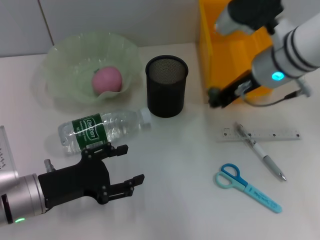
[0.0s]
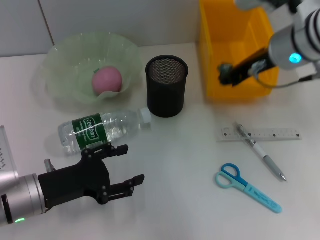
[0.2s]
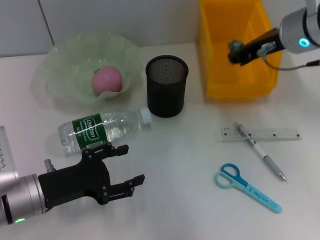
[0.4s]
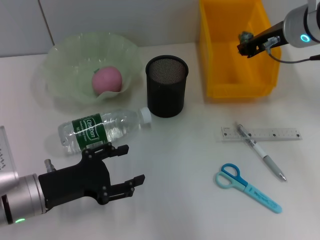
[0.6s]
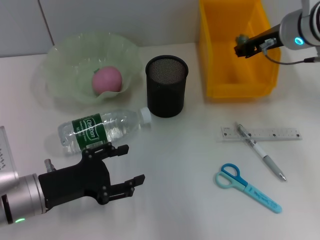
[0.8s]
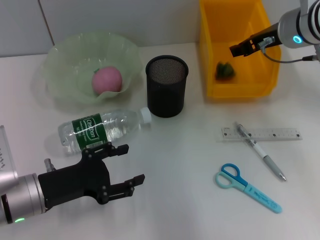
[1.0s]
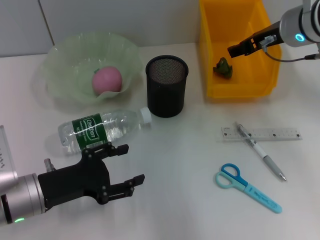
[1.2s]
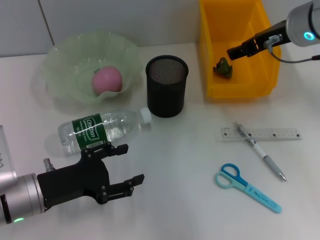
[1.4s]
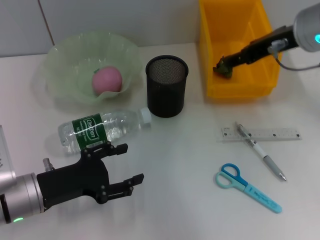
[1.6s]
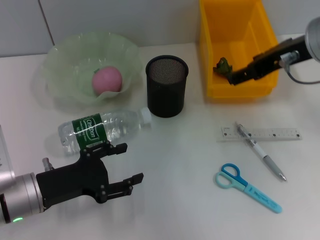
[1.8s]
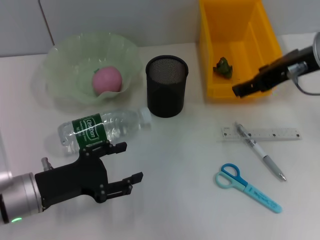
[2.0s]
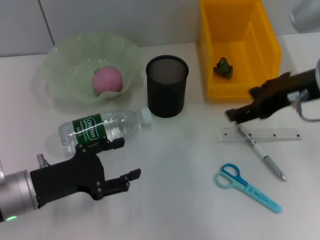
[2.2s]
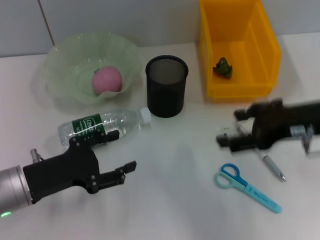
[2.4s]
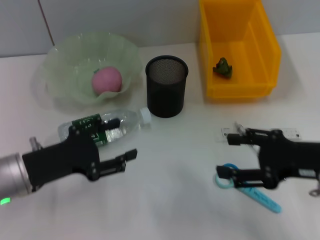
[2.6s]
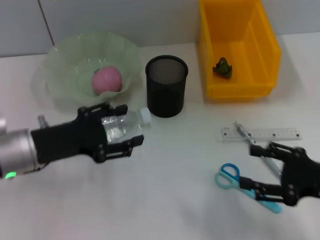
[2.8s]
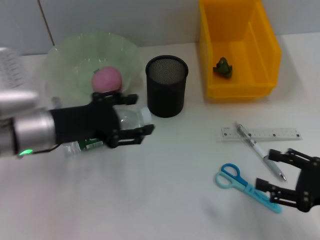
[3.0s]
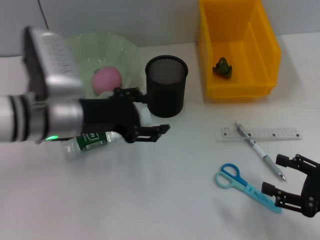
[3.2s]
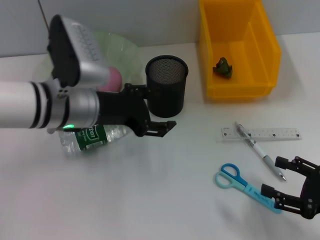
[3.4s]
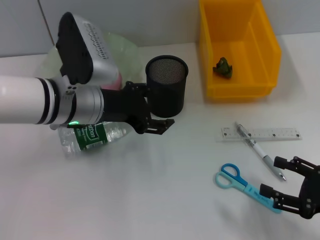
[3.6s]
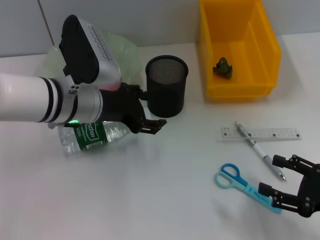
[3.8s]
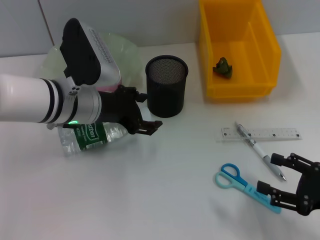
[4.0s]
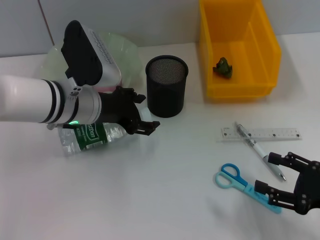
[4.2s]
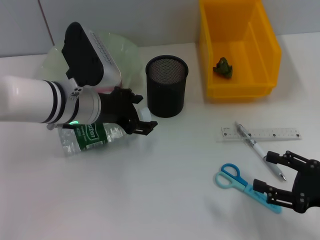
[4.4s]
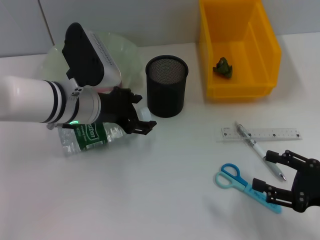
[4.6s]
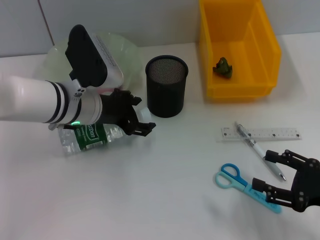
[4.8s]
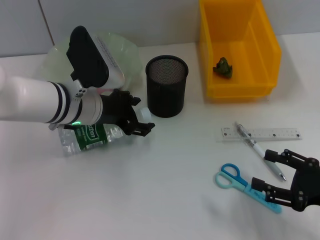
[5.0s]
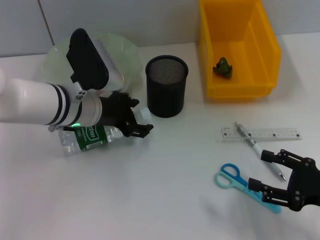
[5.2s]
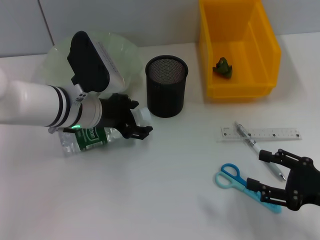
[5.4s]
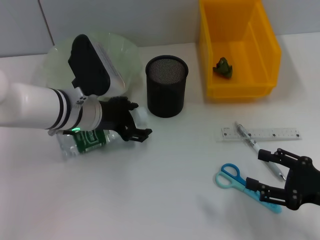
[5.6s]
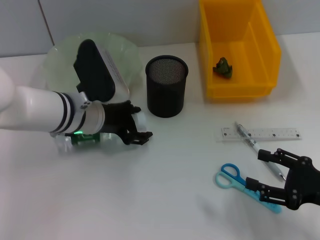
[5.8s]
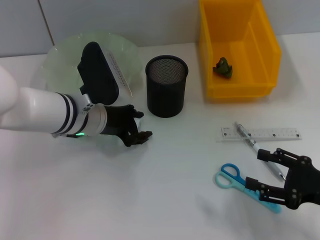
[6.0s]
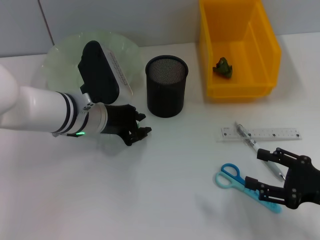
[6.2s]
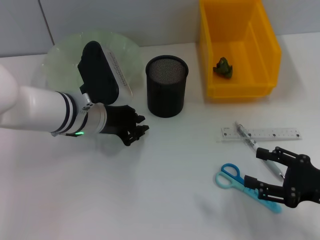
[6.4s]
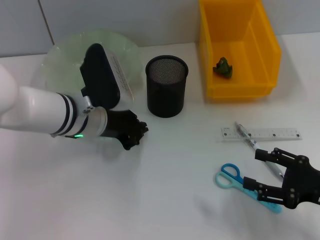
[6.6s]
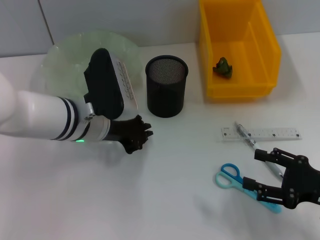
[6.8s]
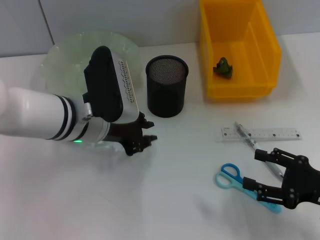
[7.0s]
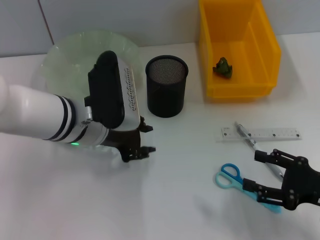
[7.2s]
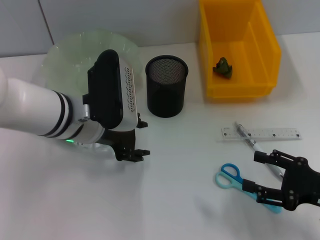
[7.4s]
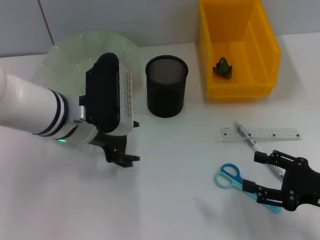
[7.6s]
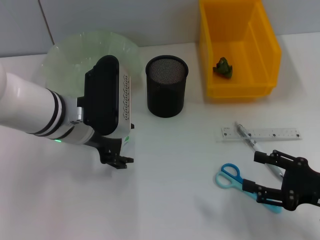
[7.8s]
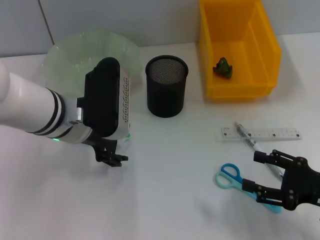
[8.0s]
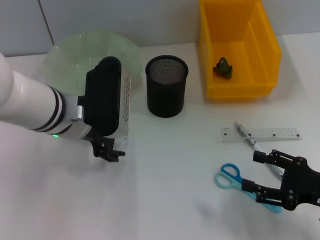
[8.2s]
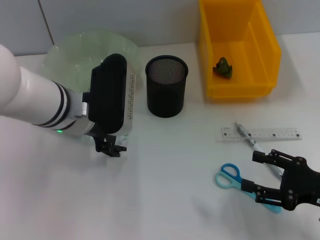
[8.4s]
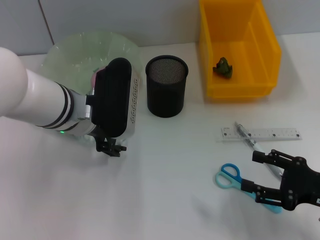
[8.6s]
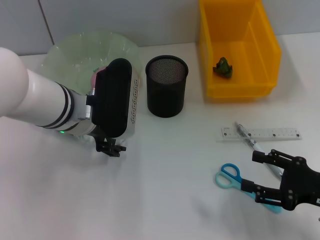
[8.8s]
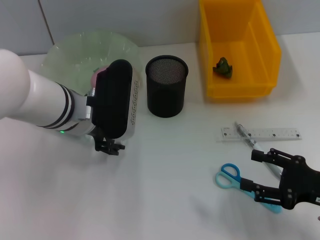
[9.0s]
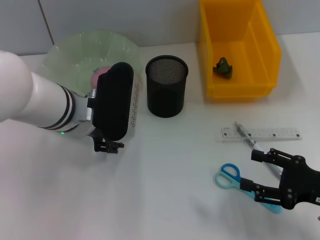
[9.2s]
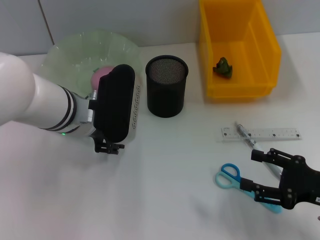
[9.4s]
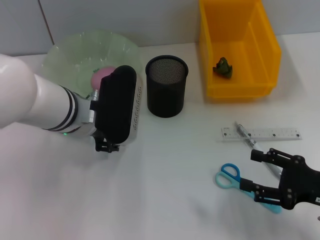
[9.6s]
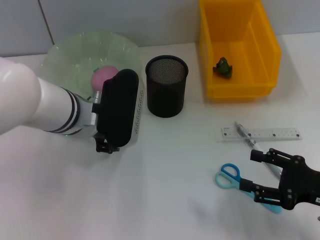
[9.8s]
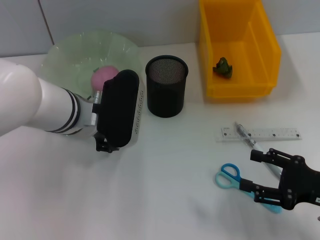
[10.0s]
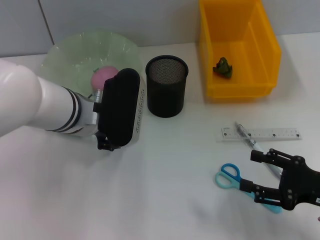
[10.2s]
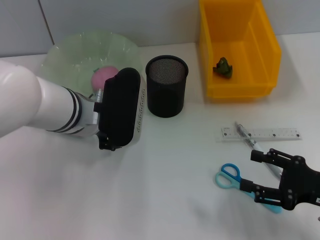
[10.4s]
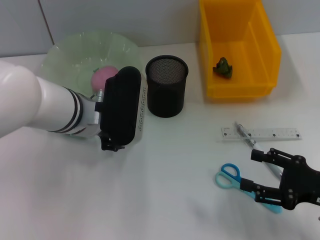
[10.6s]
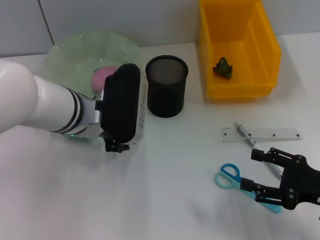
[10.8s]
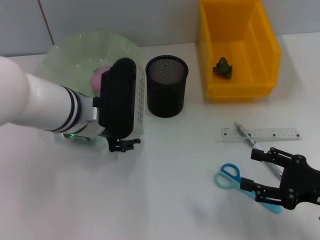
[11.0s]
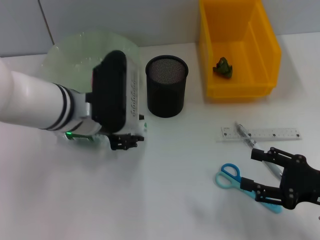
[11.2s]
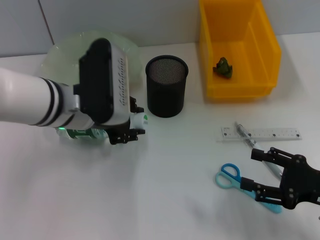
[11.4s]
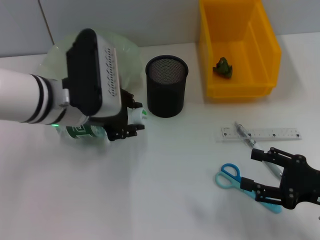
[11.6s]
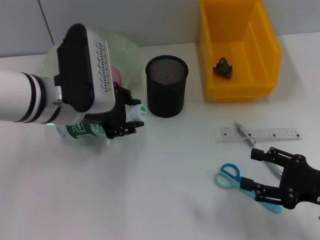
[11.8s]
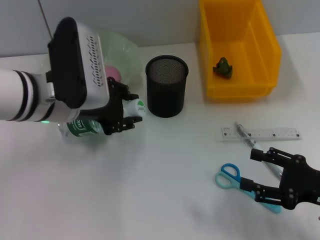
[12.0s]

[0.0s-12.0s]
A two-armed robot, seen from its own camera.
Step, 0.0s to 1.0s: Place the plastic into the trash can with the right hand.
Step, 1.2s to 10.2s: Grab the water bottle with the left hand.
0.0s to 1.6s: The right gripper is displaced upward by approximately 5 cm, and opens up.
1.6s to 3.0s: The right gripper heads backward, downward and to the right, covering roughly 30 cm. The left gripper is displaced upward and forward by approximately 10 cm.
3.0s to 4.4s: The left gripper is displaced to the right and forward by roughly 10 cm.
4.4s to 6.0s: The grippers make only small movements.
6.0s to 7.6s: The left gripper shifts by about 5 cm, and closes, then reopens.
7.6s to 9.0s: The grippers move only a little.
9.0s to 10.4s: The left gripper closes up.
10.4s to 12.0s: The left gripper moves approximately 5 cm.

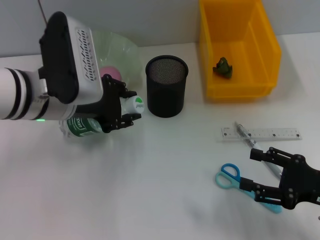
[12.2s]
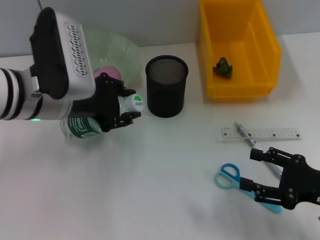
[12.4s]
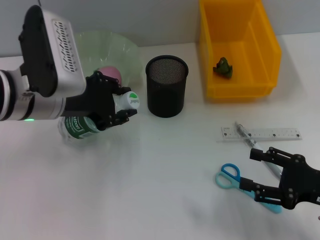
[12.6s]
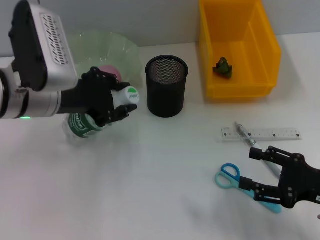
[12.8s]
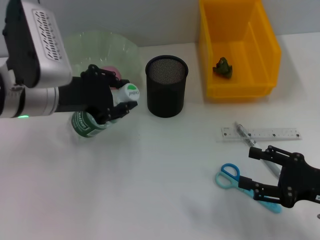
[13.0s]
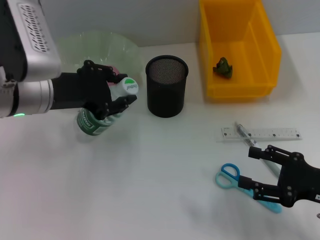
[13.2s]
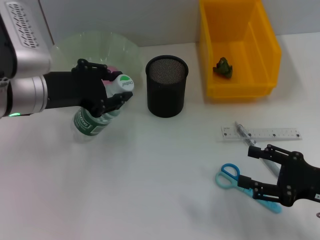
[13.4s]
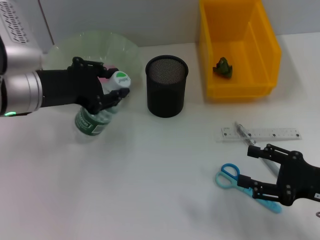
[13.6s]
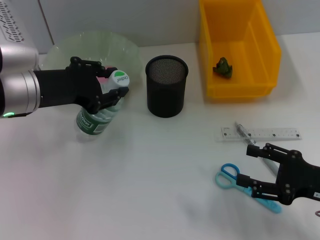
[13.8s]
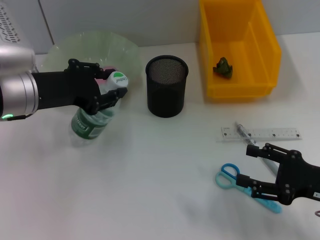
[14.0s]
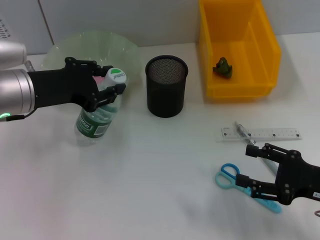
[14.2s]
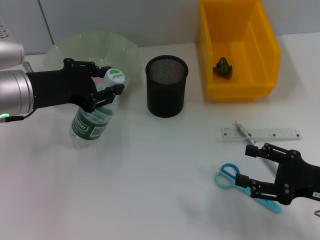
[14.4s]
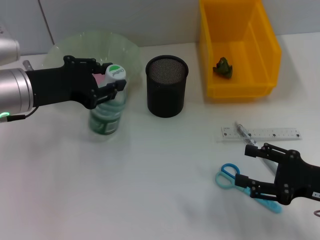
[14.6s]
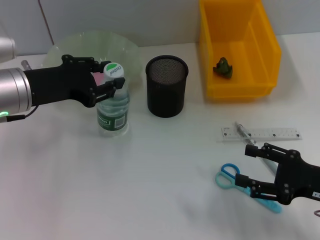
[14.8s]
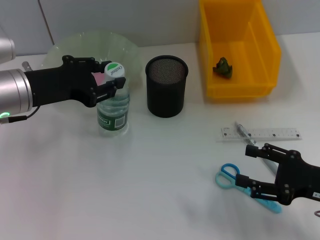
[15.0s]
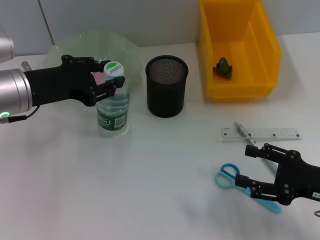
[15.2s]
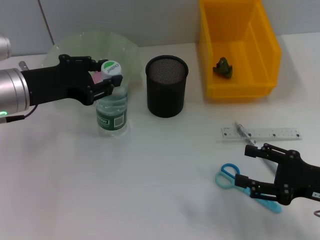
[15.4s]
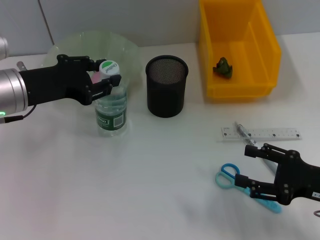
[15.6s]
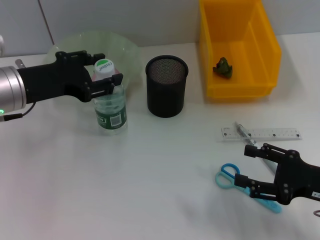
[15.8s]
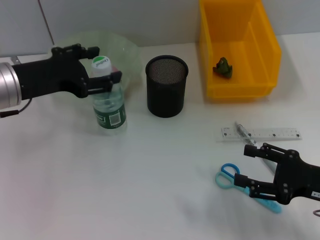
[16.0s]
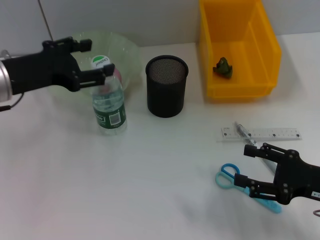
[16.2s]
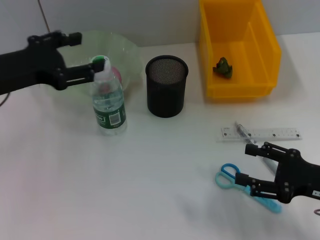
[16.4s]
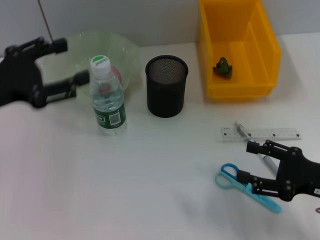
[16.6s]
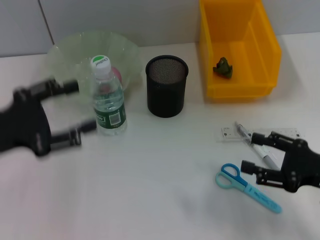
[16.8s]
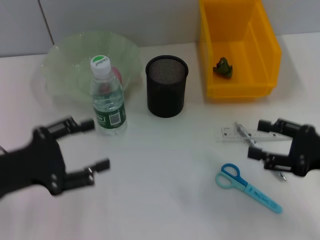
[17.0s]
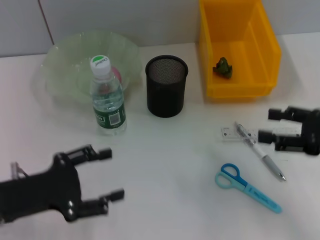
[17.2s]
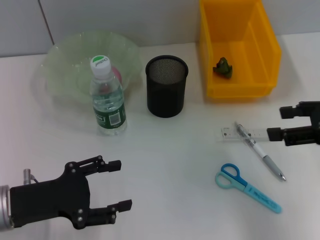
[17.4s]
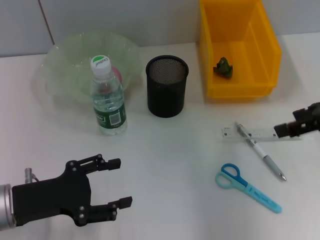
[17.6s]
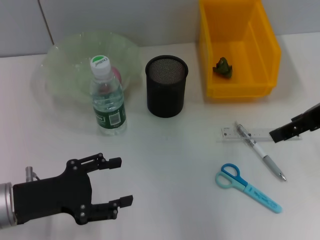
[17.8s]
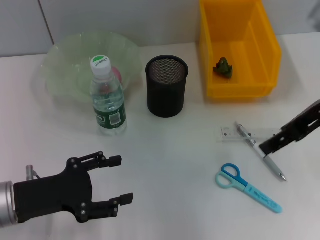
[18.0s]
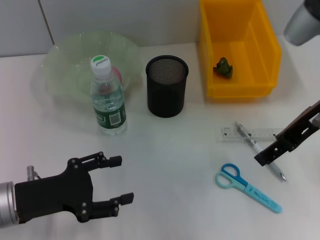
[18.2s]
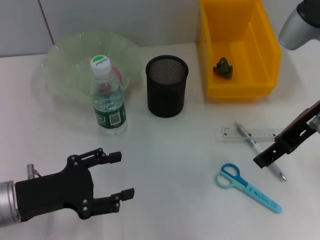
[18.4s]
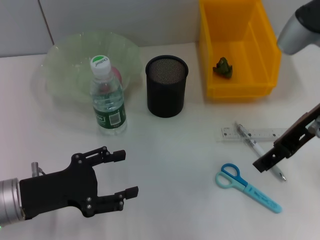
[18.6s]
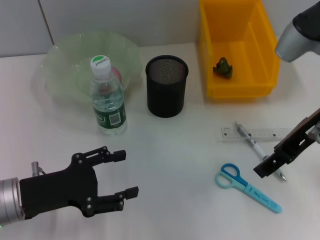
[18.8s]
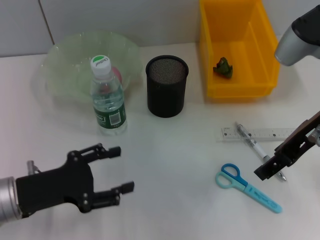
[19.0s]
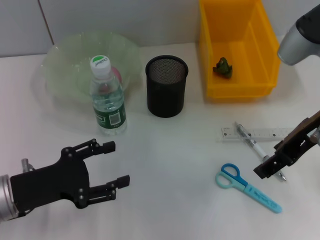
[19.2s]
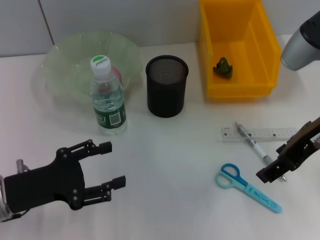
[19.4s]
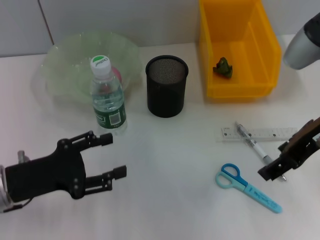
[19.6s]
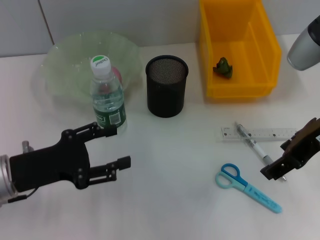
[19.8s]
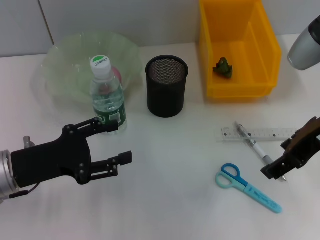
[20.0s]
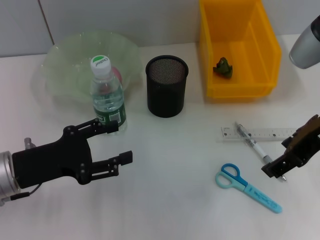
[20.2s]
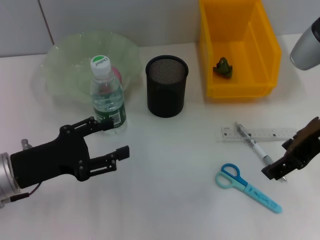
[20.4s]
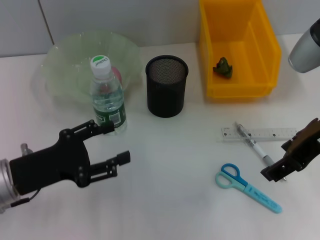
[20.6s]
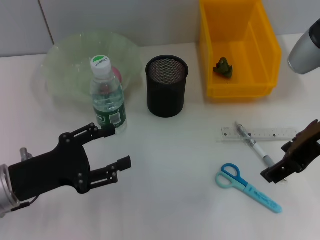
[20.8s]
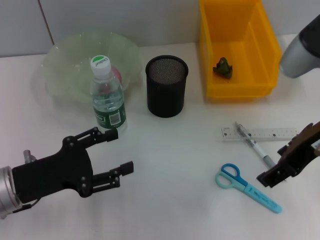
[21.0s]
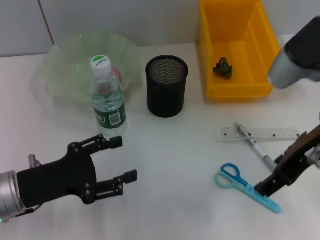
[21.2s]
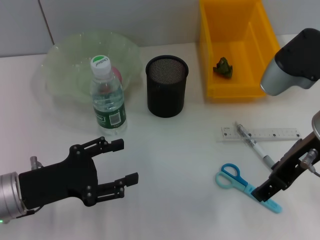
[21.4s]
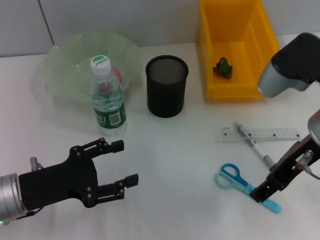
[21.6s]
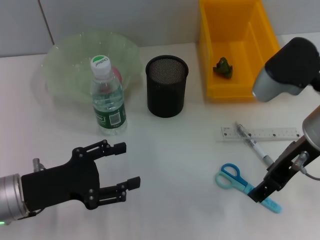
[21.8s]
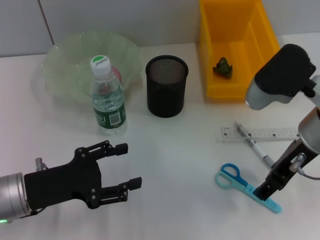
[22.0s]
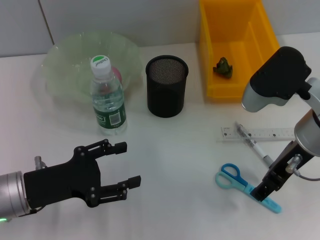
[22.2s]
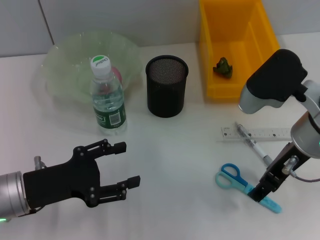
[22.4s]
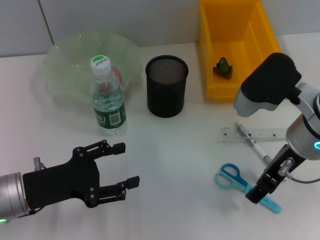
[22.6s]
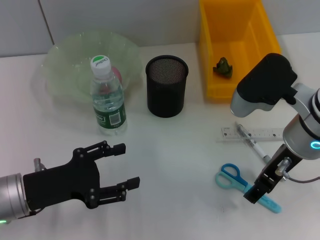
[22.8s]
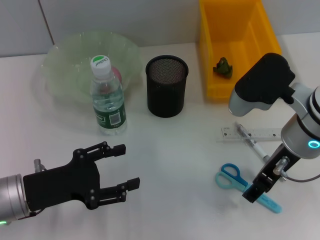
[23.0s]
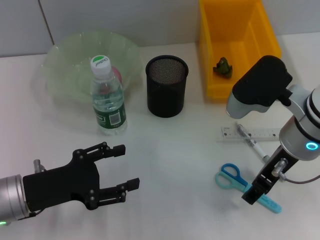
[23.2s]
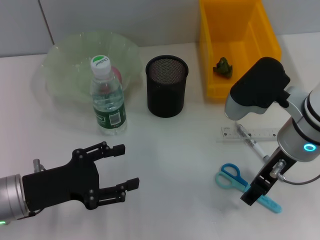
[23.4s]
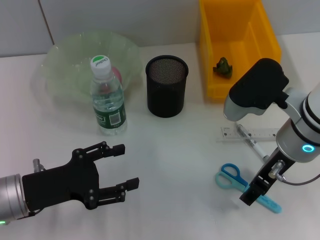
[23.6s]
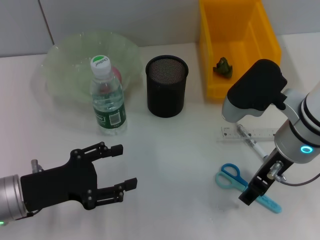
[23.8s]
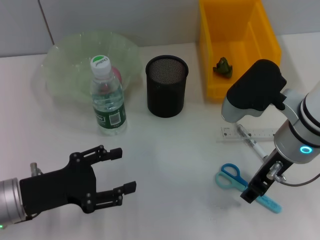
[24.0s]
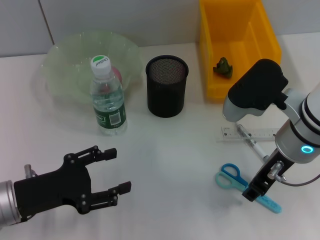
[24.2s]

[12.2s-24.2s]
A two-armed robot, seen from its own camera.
Step, 12.2s to 16.0s: Place the water bottle on the table with the left hand.
13.8s to 15.2s: There are only small adjustments of the grippers.
15.2s to 16.6s: The left gripper travels to the left by roughly 5 cm, and opens.
16.6s to 18.2s: The left gripper travels downward and backward by roughly 15 cm. Meanwhile the right gripper travels upward, forward and to the left by roughly 20 cm.
18.2s to 21.2s: There are only small adjustments of the grippers.
21.2s to 22.6s: The right gripper heads downward, covering some 5 cm.
22.6s to 24.2s: The grippers make only small movements.
